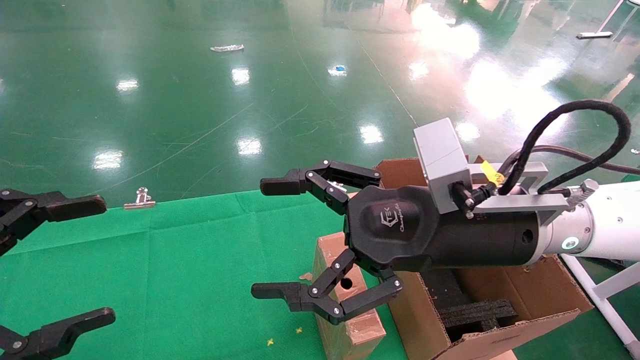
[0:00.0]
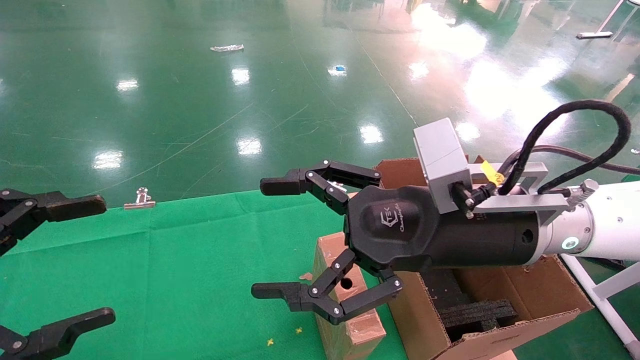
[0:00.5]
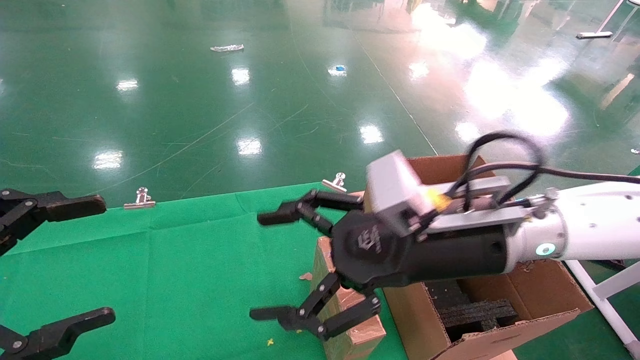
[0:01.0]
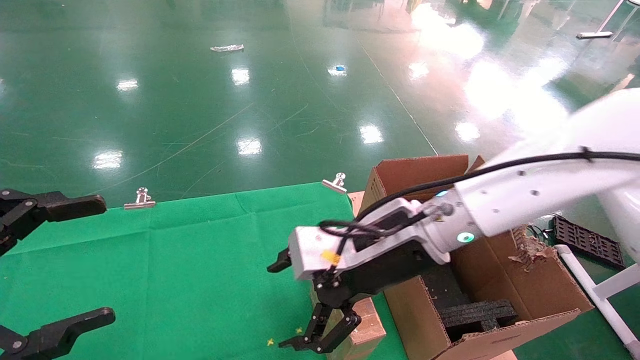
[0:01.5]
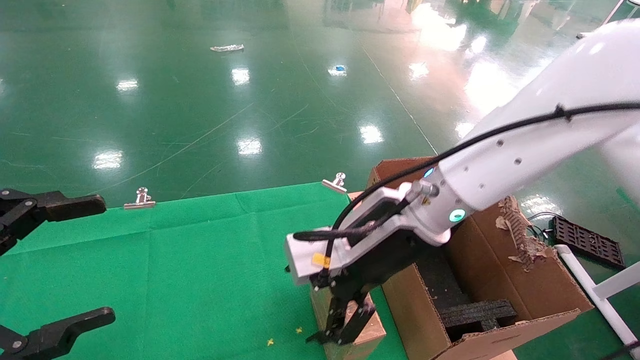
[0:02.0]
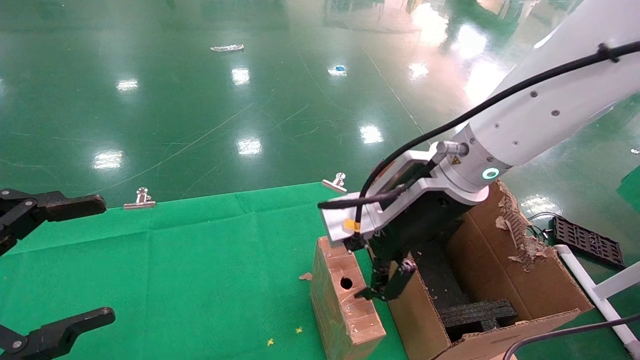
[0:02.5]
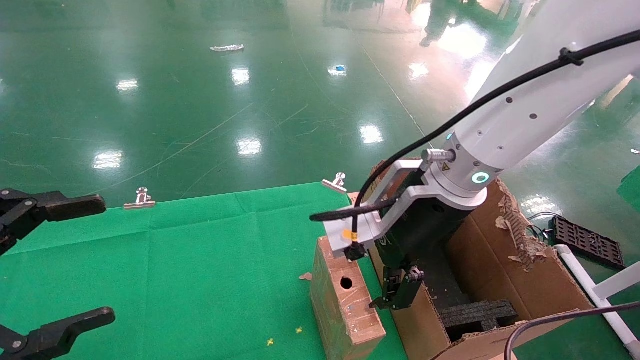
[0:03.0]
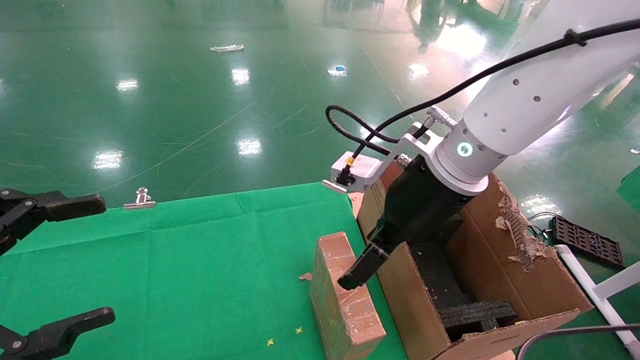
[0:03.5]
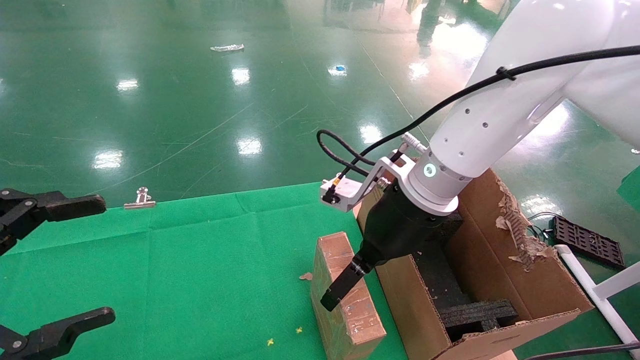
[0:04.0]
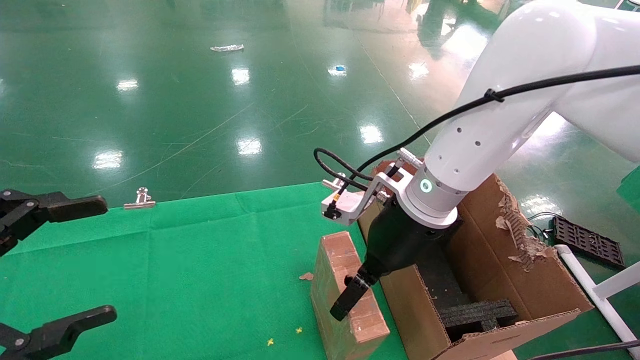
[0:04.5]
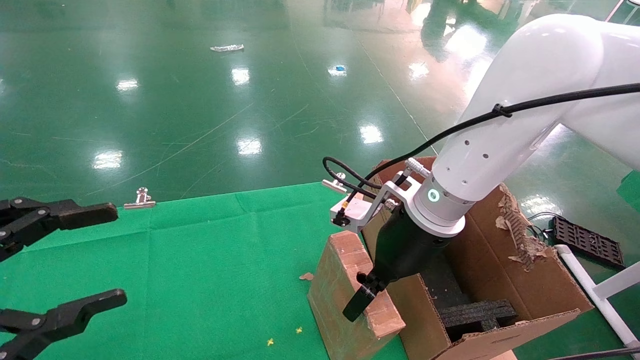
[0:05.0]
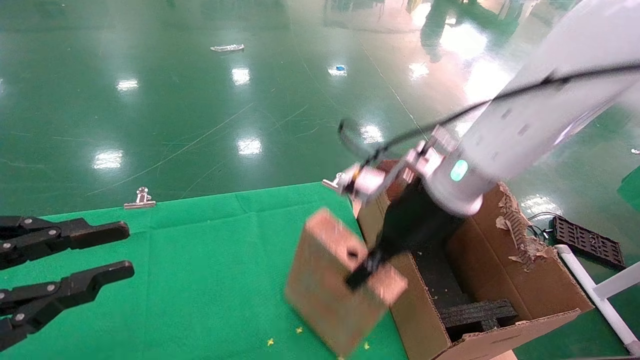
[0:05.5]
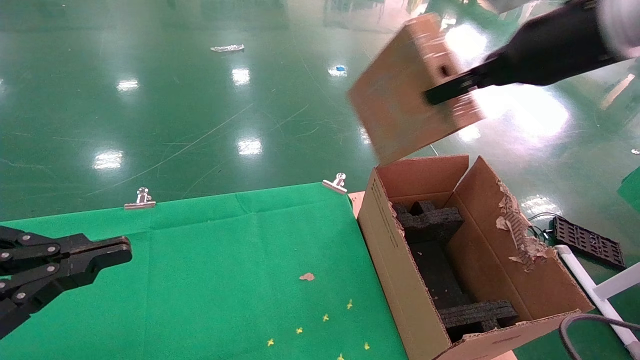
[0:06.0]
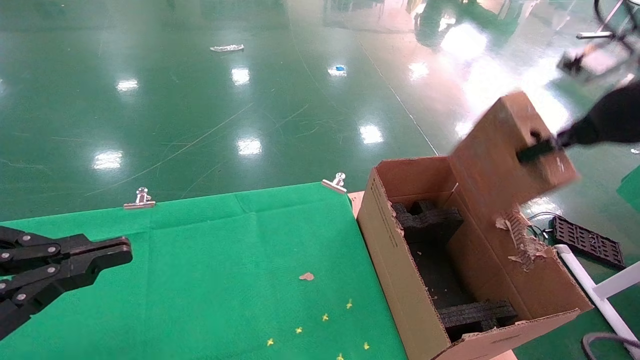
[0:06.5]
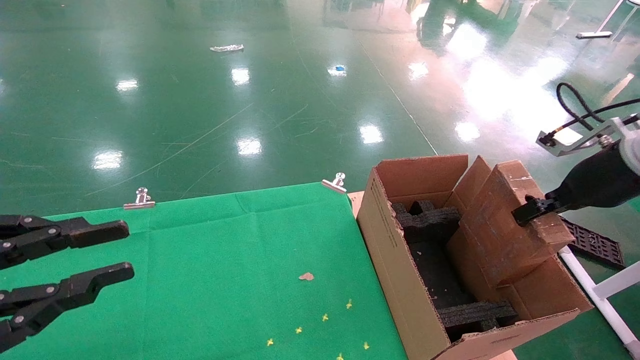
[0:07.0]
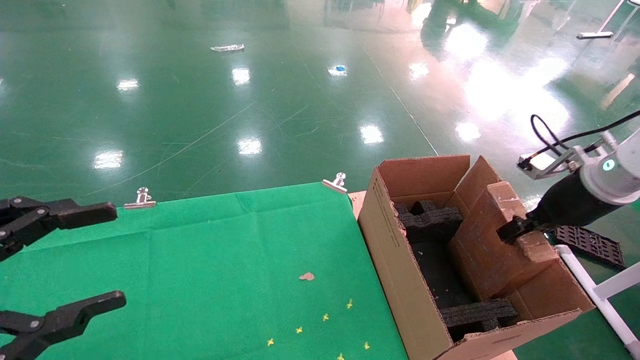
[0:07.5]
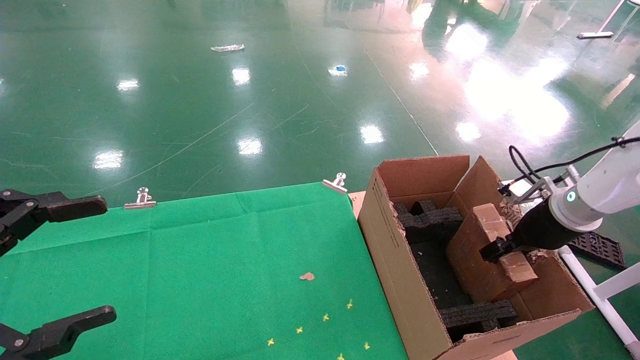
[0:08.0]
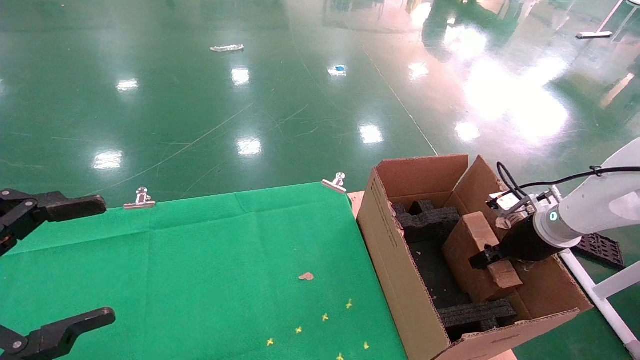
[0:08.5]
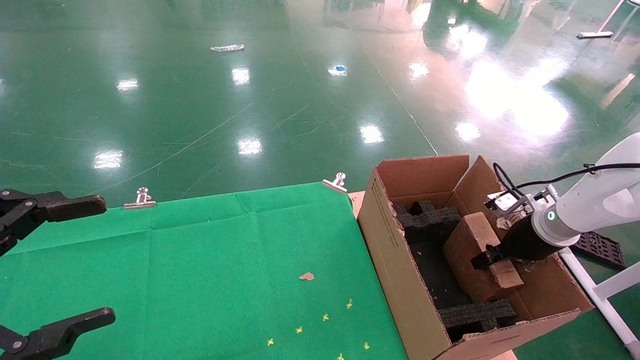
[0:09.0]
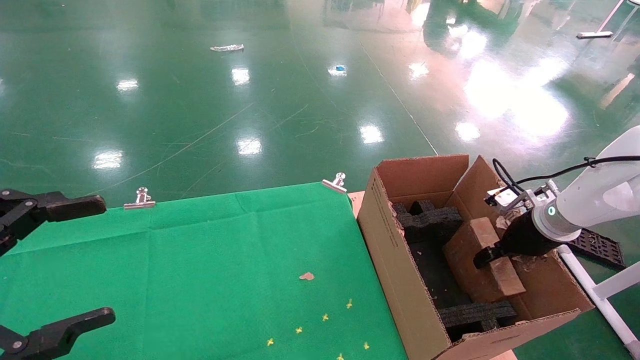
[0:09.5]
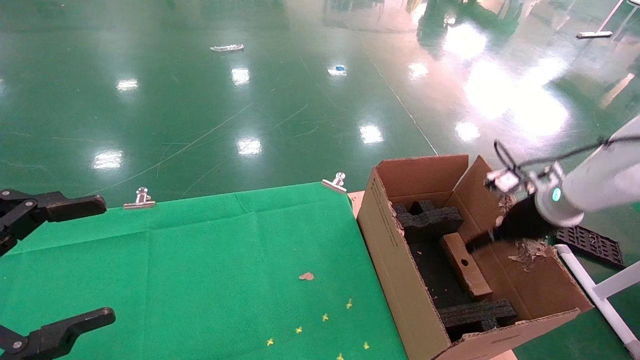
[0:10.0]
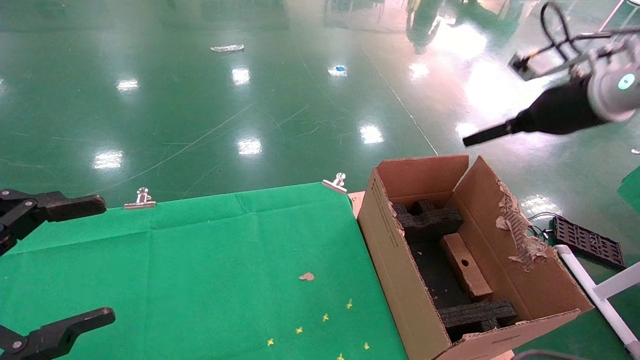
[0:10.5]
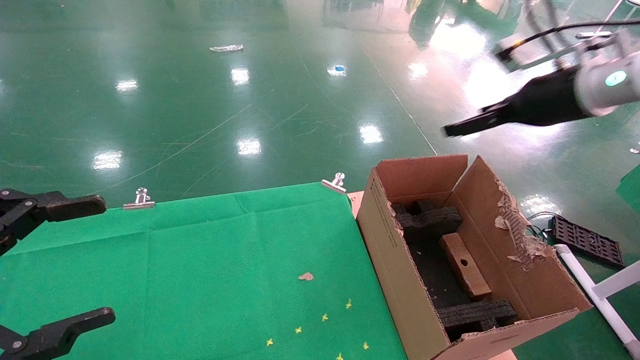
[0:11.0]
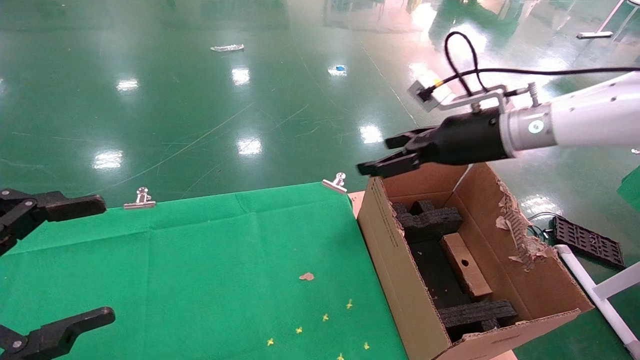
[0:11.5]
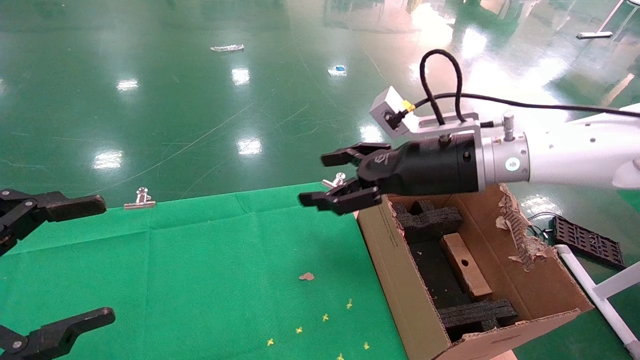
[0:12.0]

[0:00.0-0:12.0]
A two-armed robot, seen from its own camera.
Task of the whole recording: using a robotic arm to pick up a cardboard box and palace it the carton.
Step, 0:01.0 to 0:05.0: Pick up the mouse and the power cord paper box.
Step, 0:05.5 to 0:09.5: Place the mouse and the power cord paper box into the container.
0:00.0 to 0:02.0: The right gripper travels forward and to the left by about 10 cm.
0:04.0 to 0:06.0: The right gripper moves to the right and upward, approximately 20 cm, and closes its fingers. The left gripper closes up.
0:06.0 to 0:08.0: The right gripper goes some 25 cm downward and to the right; the left gripper opens up.
0:08.0 to 0:10.0: The right gripper opens up.
0:10.0 to 0:12.0: The right gripper is displaced to the left by about 20 cm.

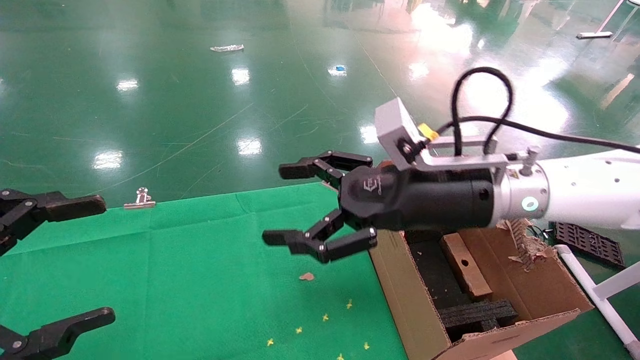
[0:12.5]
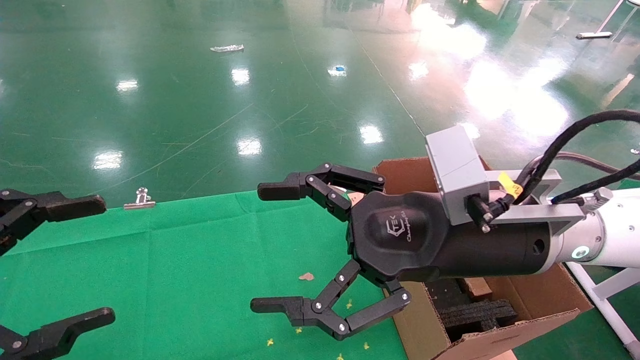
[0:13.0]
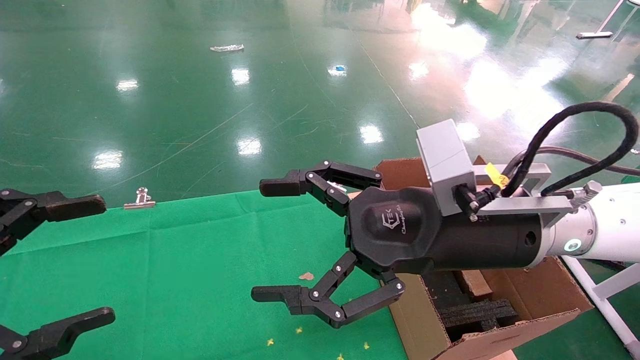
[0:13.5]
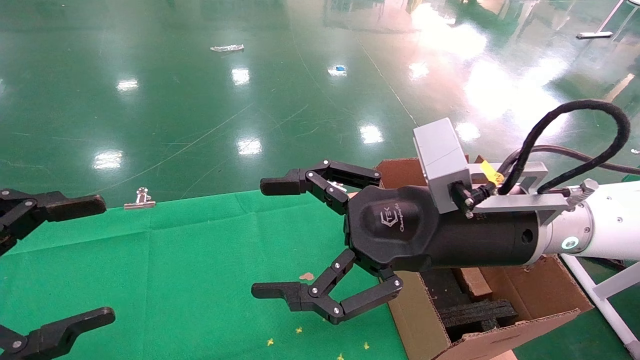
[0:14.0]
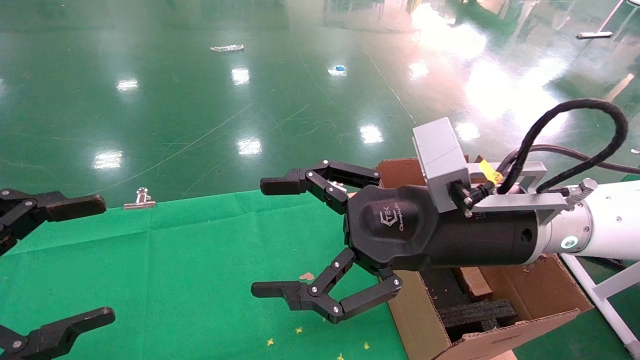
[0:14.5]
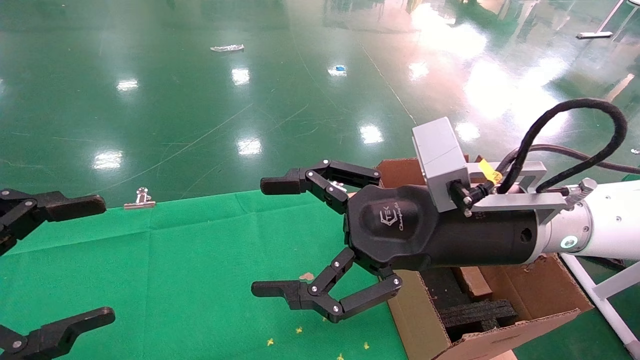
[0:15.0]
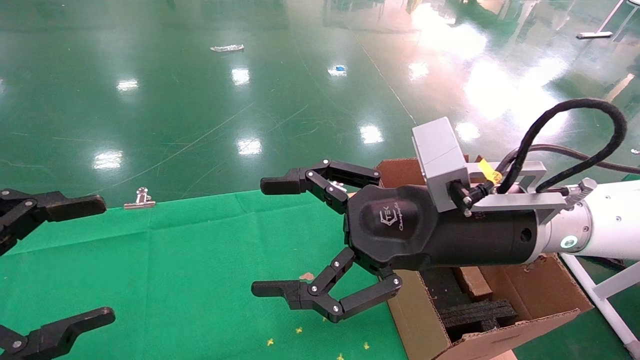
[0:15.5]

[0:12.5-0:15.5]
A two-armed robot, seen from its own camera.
Task of the whole recording: using a robotic arm to pick up a cardboard box and palace it the carton.
0:12.5 to 0:14.0: The right gripper shifts about 5 cm backward.
0:14.0 to 0:15.5: Both grippers stay about where they are.
